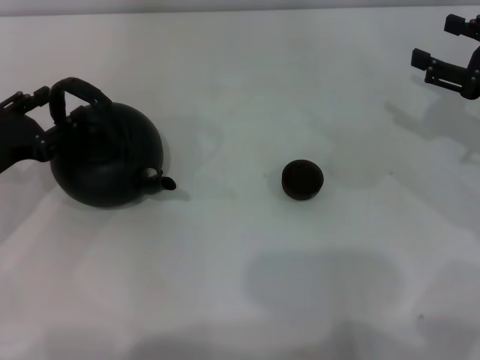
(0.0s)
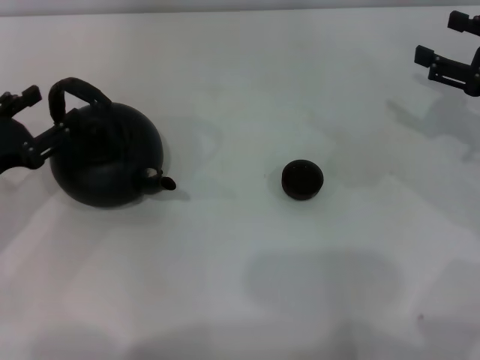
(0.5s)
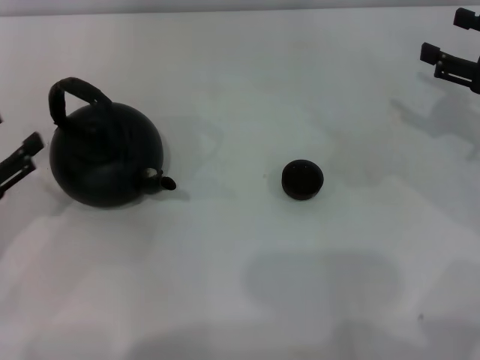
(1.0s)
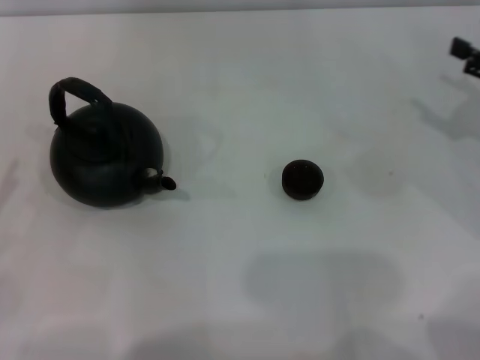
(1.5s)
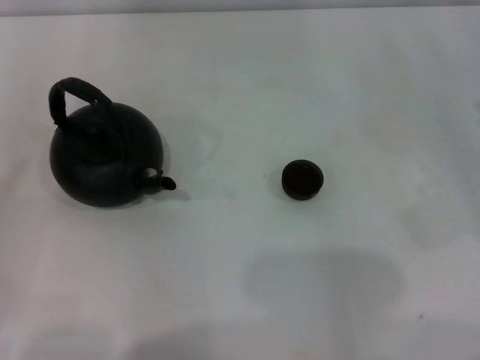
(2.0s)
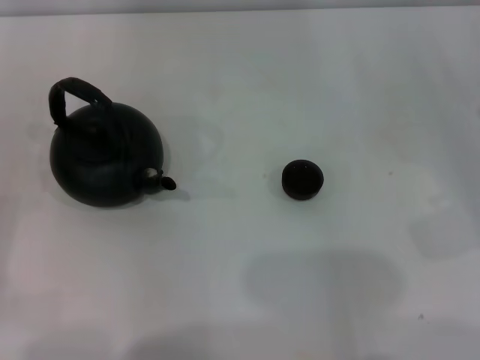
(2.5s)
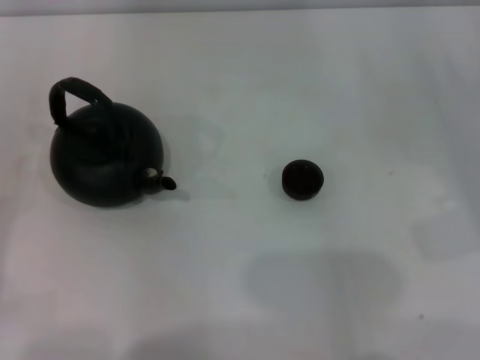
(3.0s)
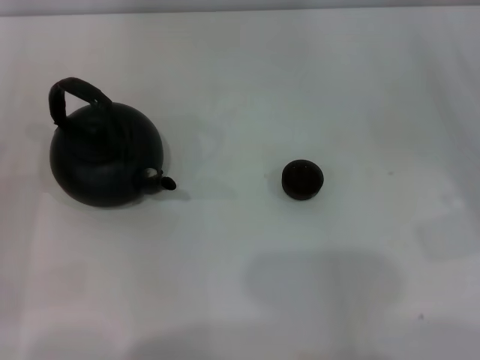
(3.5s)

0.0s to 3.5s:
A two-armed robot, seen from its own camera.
Task of the whole recording: Grasp the handle of the teapot with one hand and pour tea into the teacup.
0.0s to 2.0s: The left gripper goes about 15 cm backward and to the left, and opens. Meanwhile the right gripper is displaced backward and to the right by about 10 cm.
